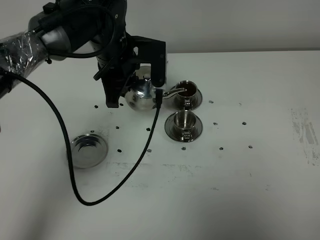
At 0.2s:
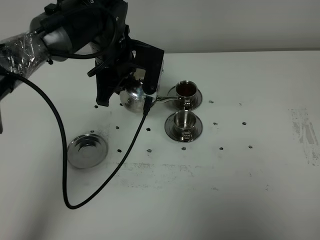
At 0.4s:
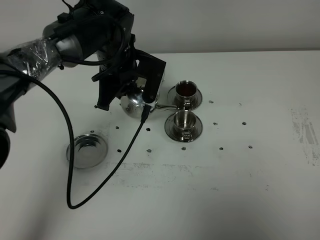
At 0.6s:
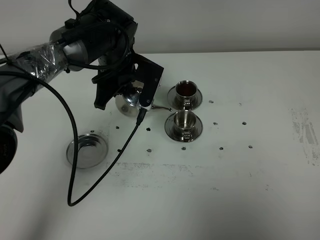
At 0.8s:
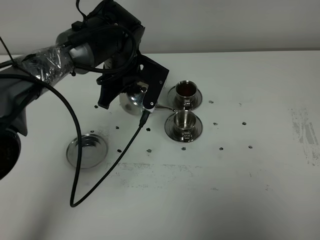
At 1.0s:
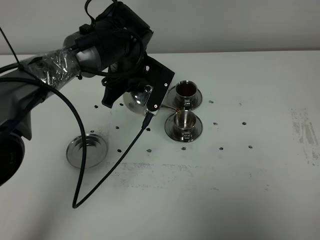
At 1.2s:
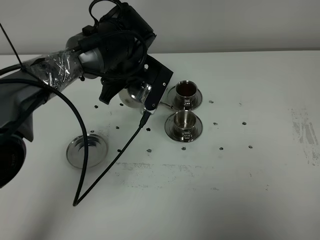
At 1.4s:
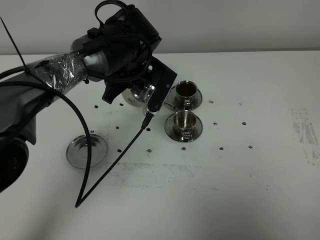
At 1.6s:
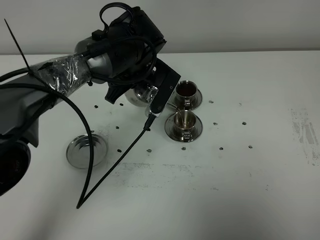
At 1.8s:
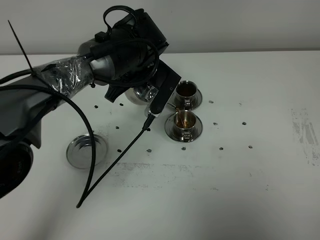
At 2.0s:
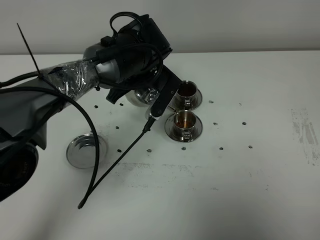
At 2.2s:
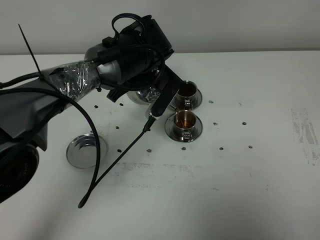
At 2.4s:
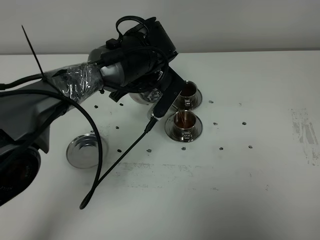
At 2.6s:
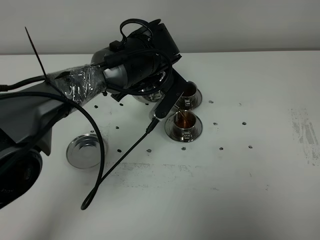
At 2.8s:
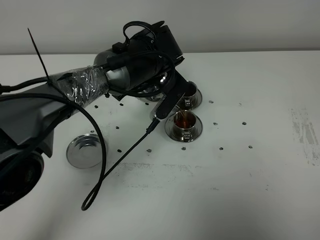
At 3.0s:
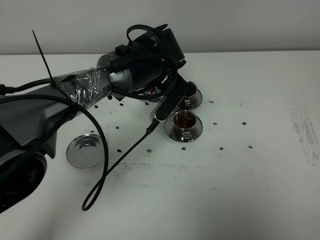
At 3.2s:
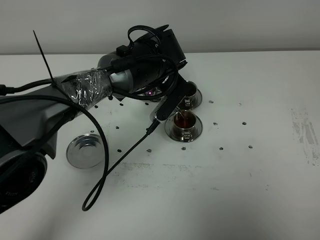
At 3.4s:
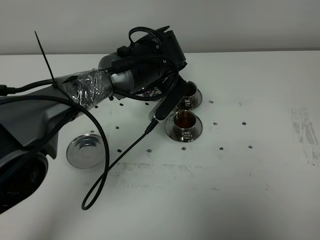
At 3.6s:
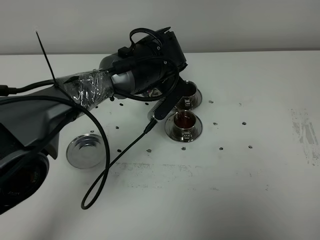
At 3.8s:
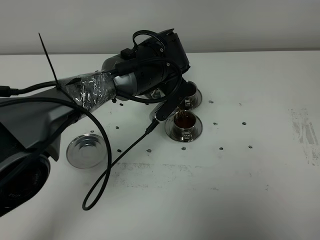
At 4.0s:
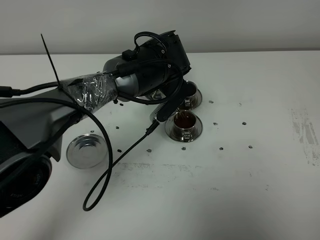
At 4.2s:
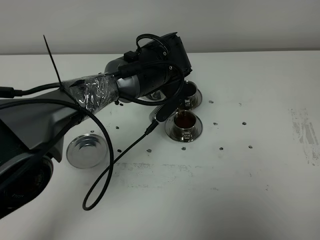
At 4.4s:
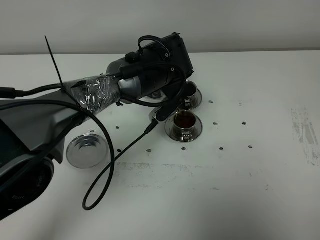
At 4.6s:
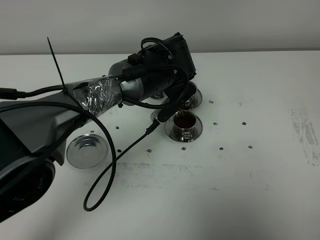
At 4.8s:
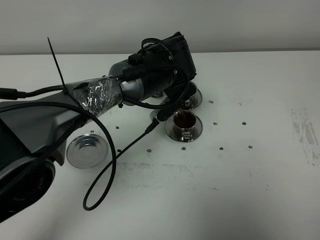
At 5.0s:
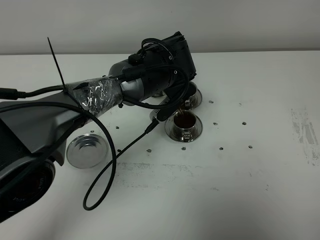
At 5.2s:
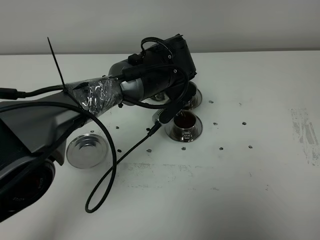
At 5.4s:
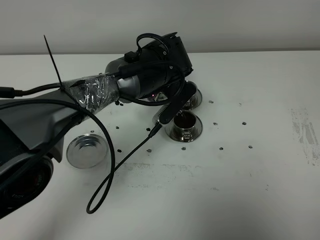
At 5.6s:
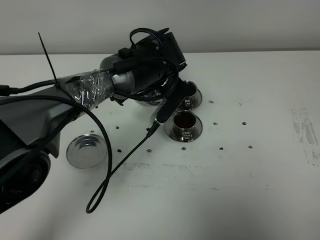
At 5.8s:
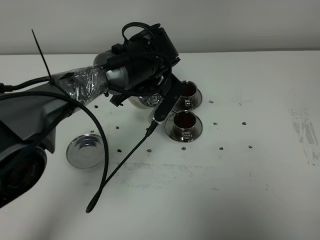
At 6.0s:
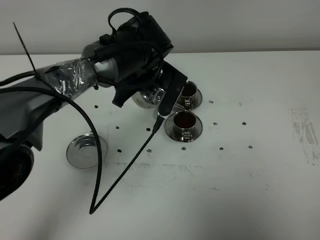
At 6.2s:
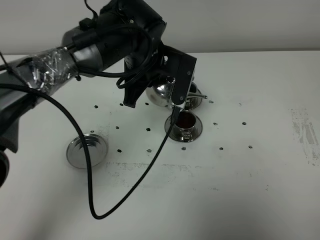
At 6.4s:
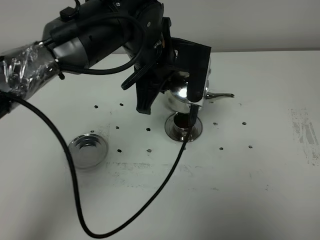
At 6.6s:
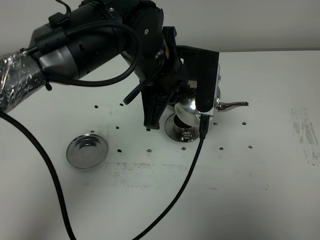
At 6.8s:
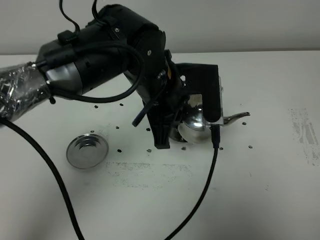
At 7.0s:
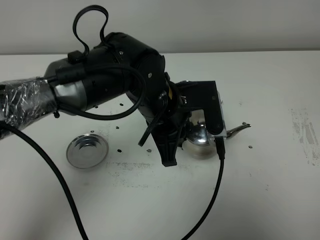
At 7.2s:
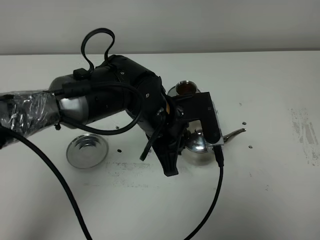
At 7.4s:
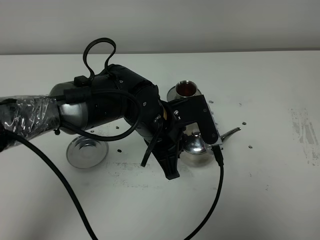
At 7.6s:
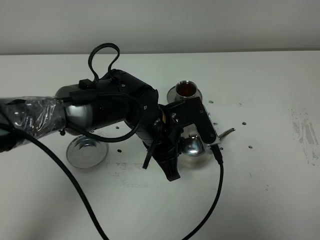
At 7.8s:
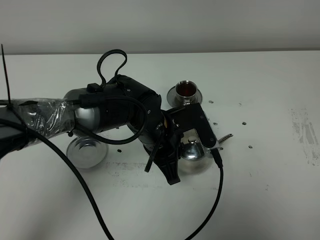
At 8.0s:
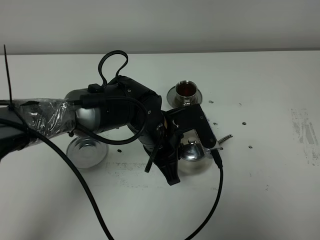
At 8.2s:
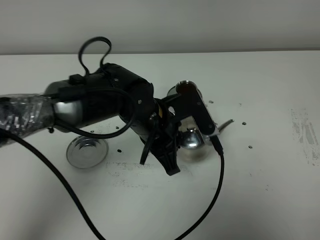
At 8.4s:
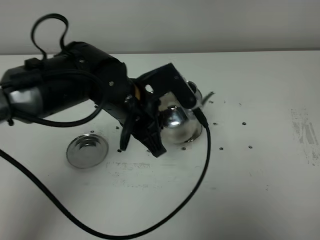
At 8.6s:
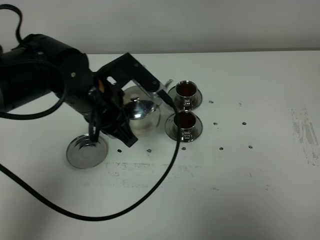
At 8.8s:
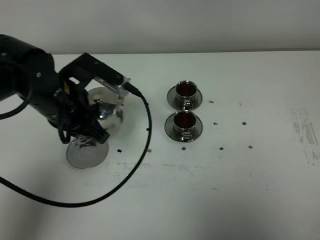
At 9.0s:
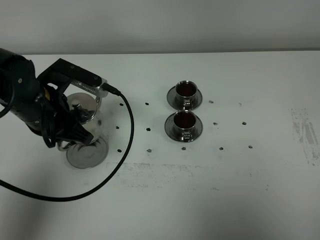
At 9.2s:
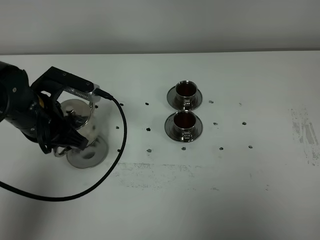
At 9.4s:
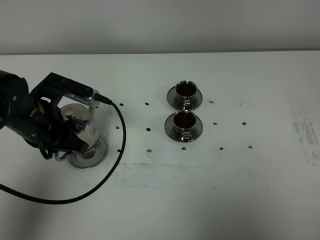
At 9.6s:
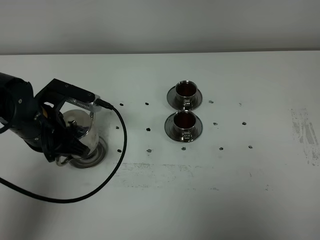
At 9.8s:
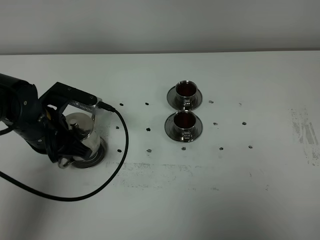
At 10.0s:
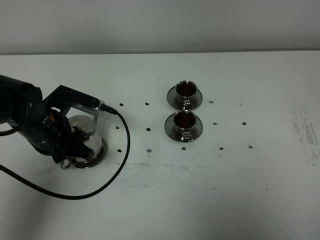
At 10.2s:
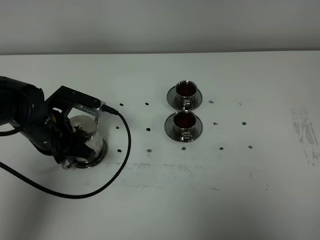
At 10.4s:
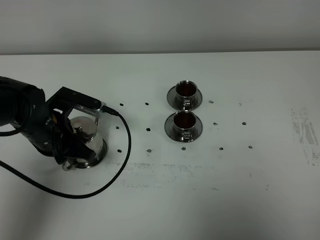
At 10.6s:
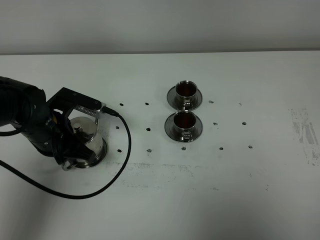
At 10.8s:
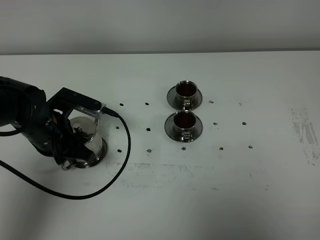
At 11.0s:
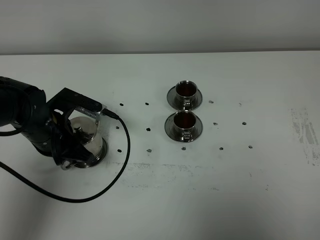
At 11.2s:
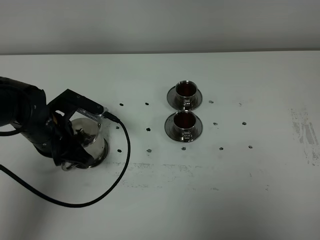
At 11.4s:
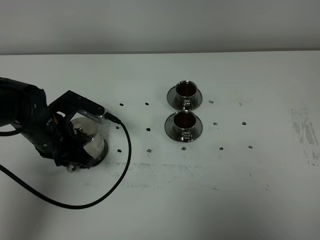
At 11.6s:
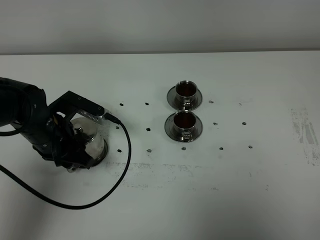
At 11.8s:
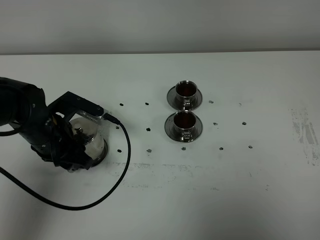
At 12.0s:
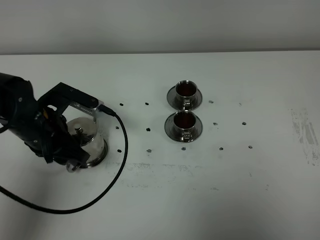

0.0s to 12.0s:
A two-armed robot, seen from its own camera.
Task of the whole recording: grasp the stainless steel teapot and pour the tea into the two stainless steel teacups one by one, put the stainless steel teapot back in its original place.
Step, 0.0s to 6.0s: Pour tea into the teacup with the left gripper.
1.6s to 4.4s: The grippers move only a little.
6.0s to 7.6s: The left gripper goes about 10 cm backward.
7.6s to 9.0s: The left gripper heads to the left, covering some 20 cm.
9.0s to 10.4s: The left gripper moves downward, approximately 5 cm.
10.4s to 12.0s: The left gripper opens its fingers.

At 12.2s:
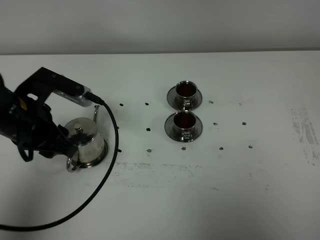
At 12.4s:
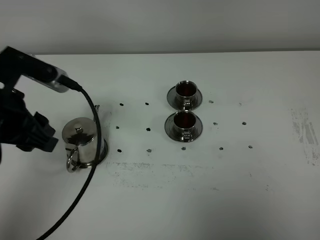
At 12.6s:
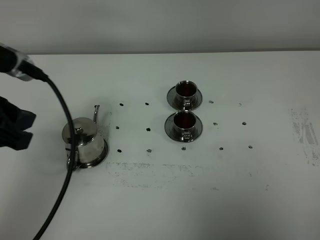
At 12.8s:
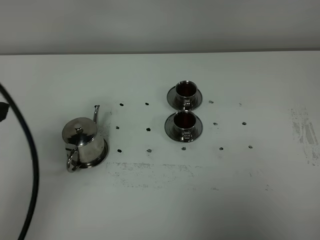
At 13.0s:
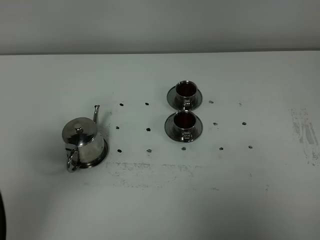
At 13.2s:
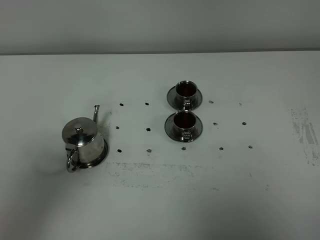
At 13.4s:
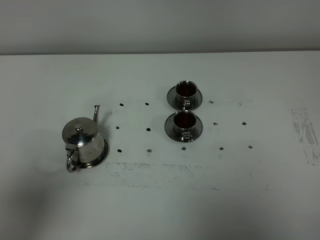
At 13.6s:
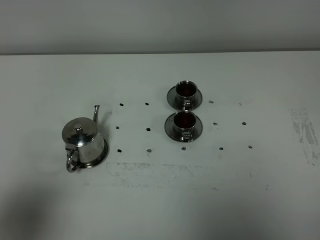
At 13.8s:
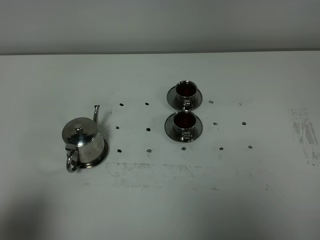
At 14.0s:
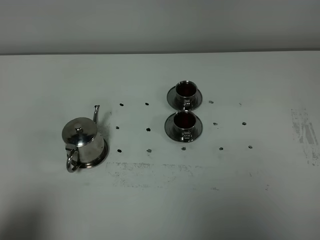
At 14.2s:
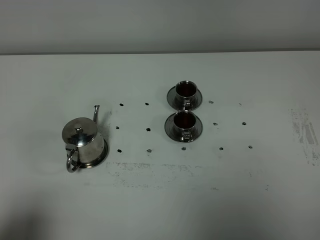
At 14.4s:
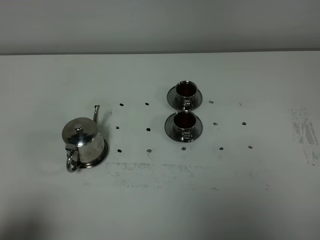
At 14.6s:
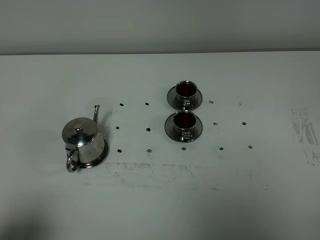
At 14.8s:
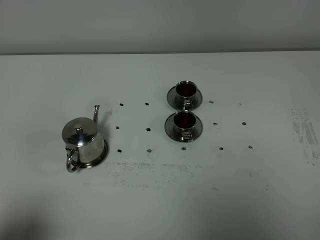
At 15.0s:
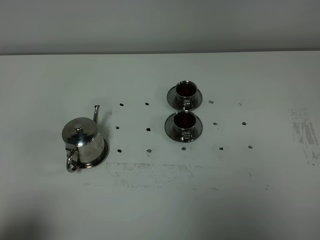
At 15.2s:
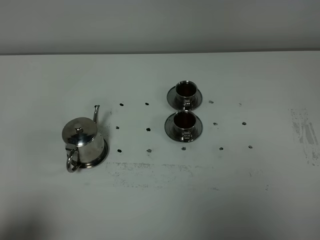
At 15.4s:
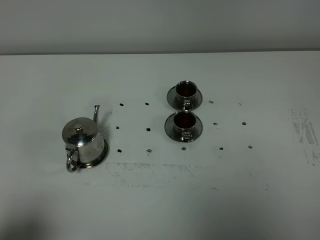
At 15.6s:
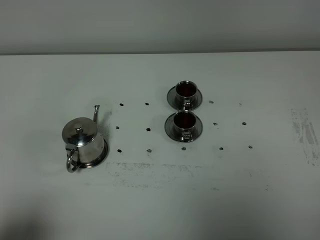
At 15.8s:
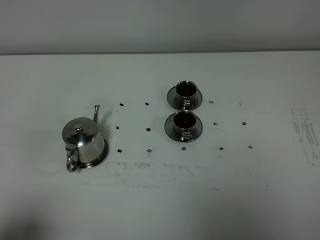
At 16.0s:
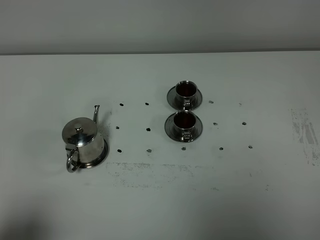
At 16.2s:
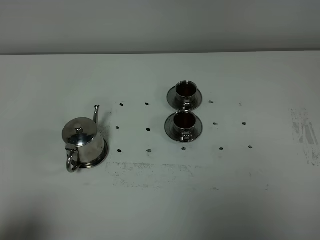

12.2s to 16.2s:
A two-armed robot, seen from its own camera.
Task of the whole recording: grasp the stainless steel teapot and pour the tea into the two stainless steel teacups one by one, put the stainless steel teapot back in its original place.
12.2s to 13.6s: The left gripper moves backward, approximately 25 cm.
13.6s to 14.8s: The left gripper heads downward, covering approximately 5 cm.
14.8s to 16.2s: Neither gripper changes place.

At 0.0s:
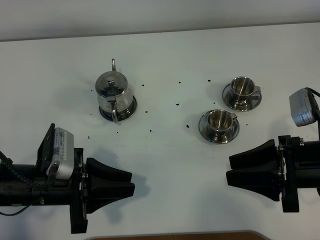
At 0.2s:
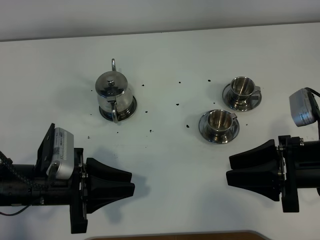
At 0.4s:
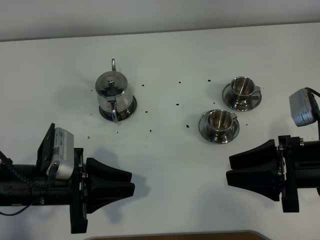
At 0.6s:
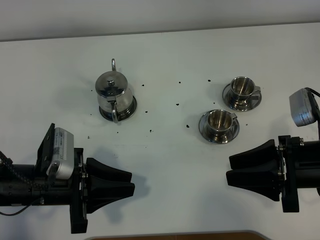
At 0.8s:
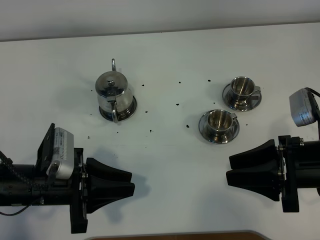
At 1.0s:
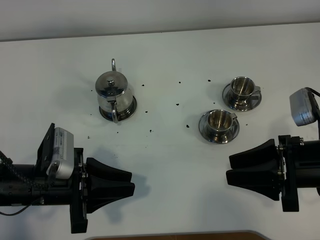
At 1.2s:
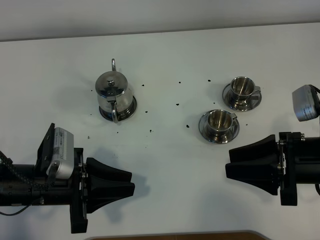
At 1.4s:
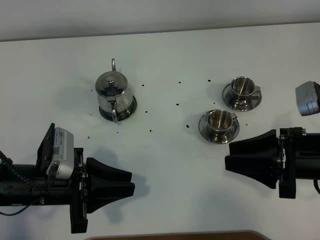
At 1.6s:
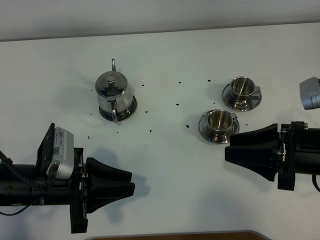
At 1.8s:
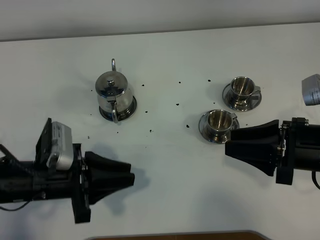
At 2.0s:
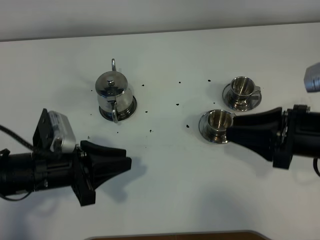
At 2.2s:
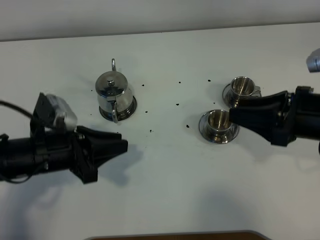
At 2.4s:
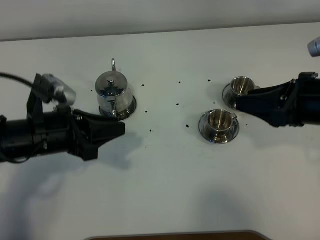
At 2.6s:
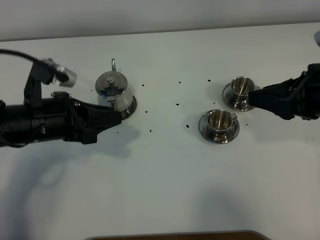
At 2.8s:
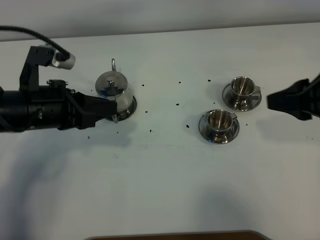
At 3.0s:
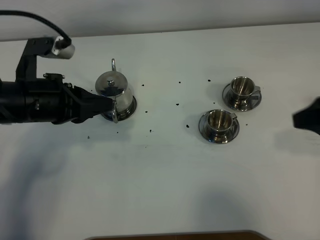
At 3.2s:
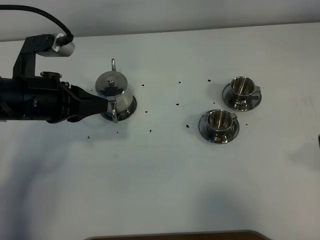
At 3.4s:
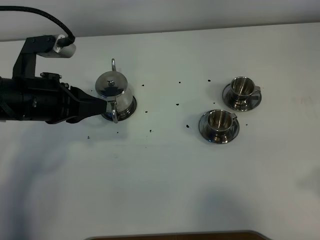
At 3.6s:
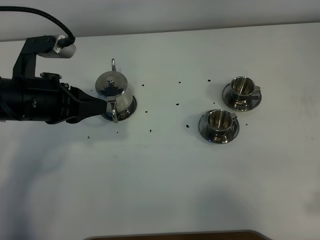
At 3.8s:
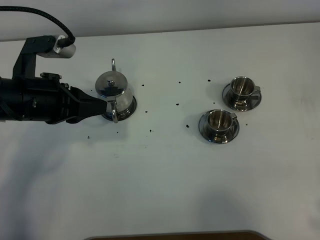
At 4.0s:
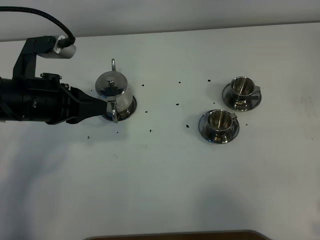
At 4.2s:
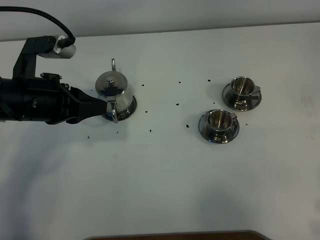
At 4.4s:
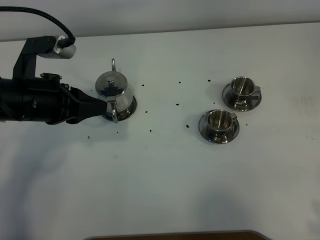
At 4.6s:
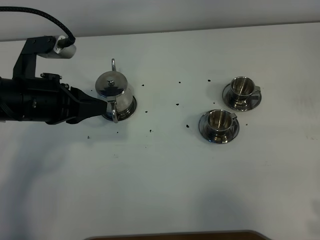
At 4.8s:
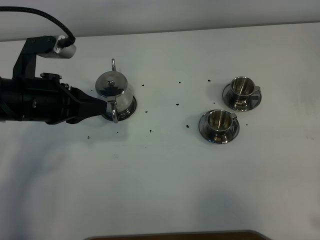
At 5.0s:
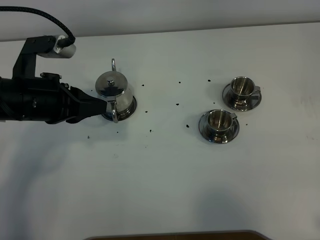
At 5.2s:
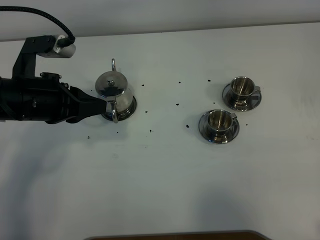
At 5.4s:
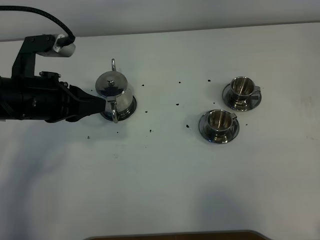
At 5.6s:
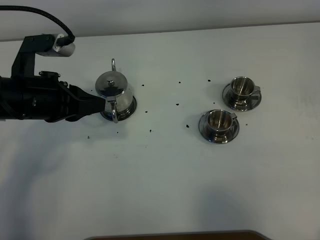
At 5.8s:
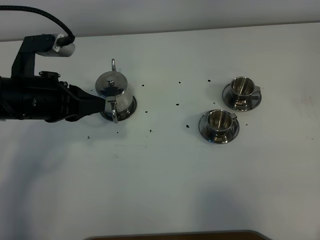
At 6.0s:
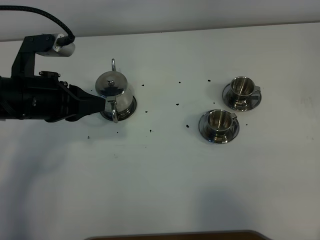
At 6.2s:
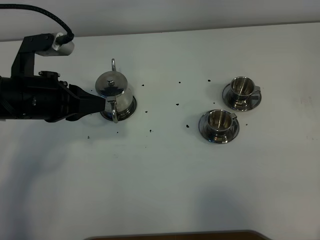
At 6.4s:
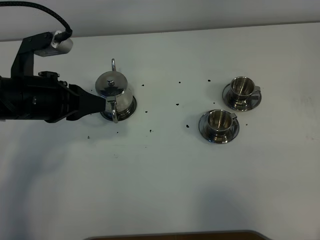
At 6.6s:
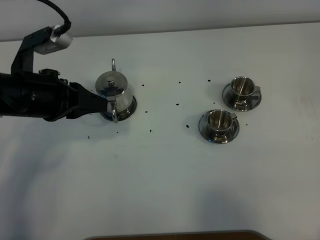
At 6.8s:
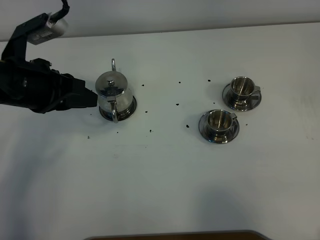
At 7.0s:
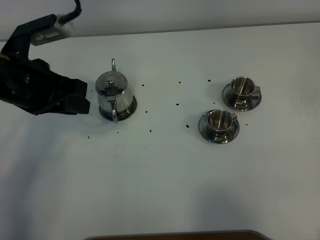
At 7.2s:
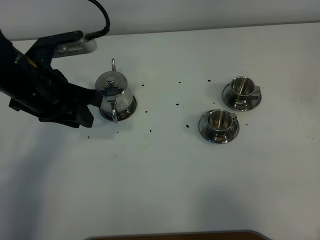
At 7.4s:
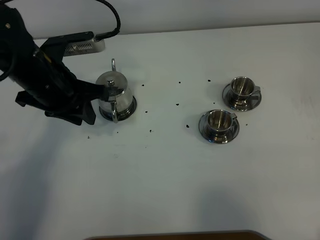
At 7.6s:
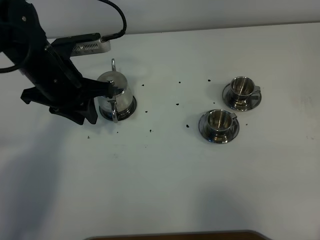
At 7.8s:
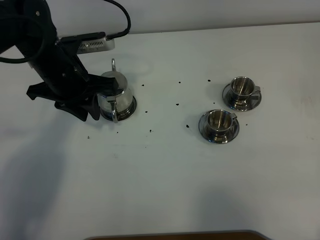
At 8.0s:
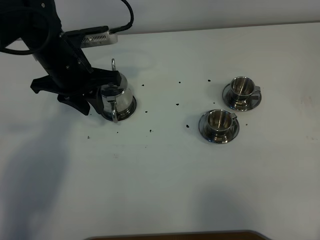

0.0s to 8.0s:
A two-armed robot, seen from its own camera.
Task of the whole recording: grasp the stainless steel teapot and pour the tea into the two stainless steel teacups one by one, put the stainless steel teapot back in its original place.
0.0s to 1.6s: The grippers make only small movements.
1.6s to 3.2s: The left gripper heads forward and upward, covering approximately 15 cm. The right gripper shifts roughly 10 cm upward and to the right.
3.2s to 4.8s: The right gripper moves backward, approximately 15 cm.
4.8s to 6.4s: The grippers make only small movements.
6.4s to 8.0s: The left gripper heads forward, covering some 10 cm.
